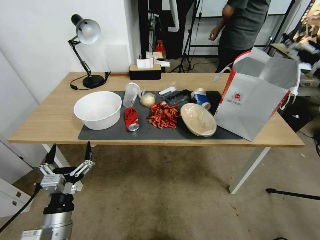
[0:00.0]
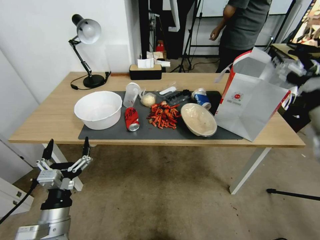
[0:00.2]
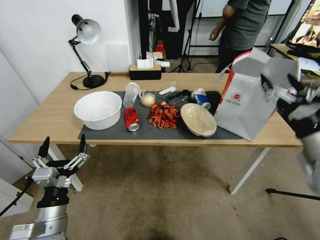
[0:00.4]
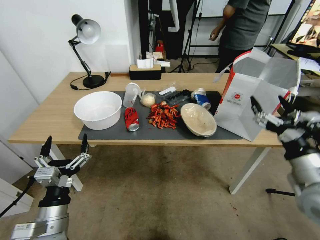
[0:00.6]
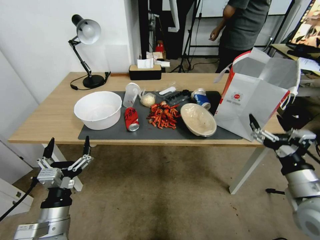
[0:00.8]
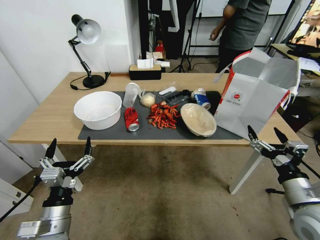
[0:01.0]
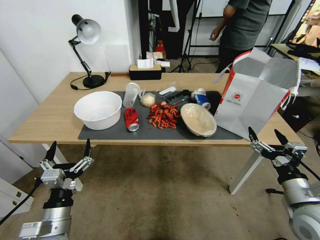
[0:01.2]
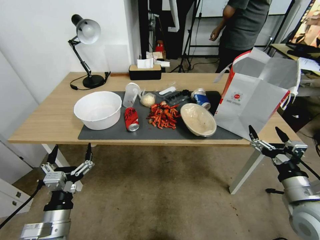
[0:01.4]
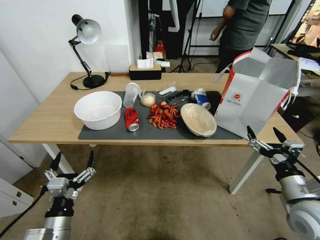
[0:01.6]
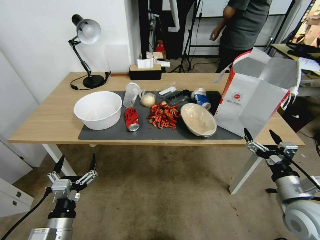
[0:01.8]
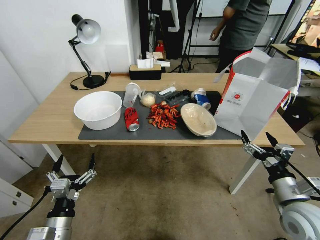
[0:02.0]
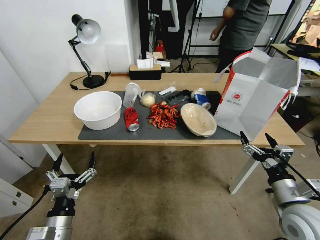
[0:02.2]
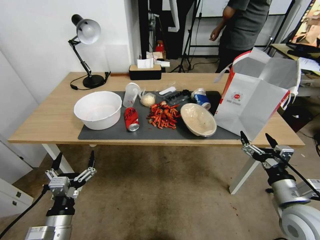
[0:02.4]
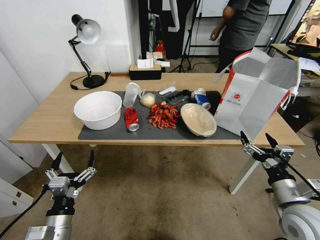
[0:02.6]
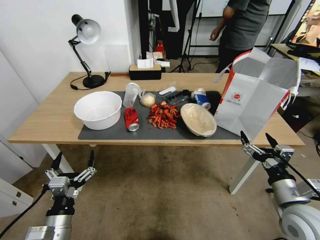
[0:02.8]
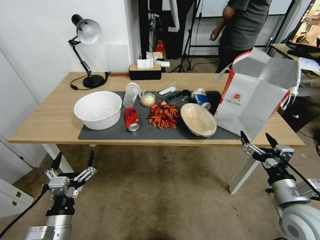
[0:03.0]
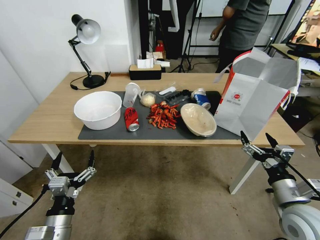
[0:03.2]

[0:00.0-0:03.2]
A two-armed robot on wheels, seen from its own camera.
Task of the whole recording: Pick up the food delivery bag from the floor and place it on the table.
0:00.0 to 0:01.6: The right gripper heads downward and backward, covering some 25 cm.
0:01.6 to 0:03.2: The grippers move only a little.

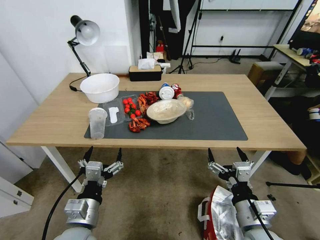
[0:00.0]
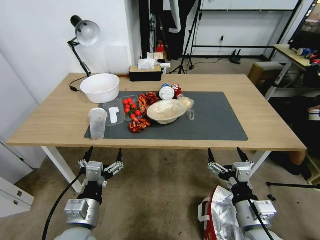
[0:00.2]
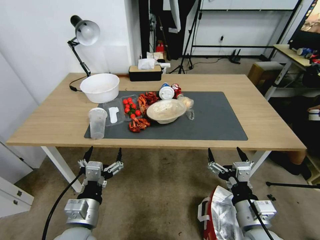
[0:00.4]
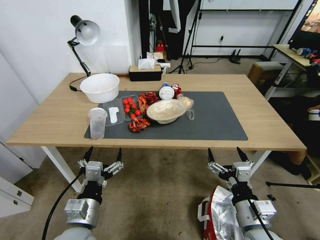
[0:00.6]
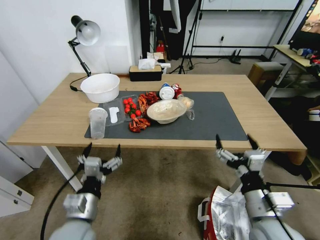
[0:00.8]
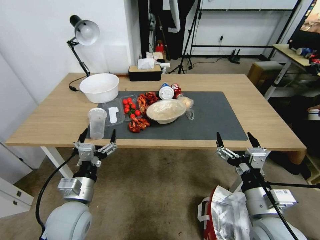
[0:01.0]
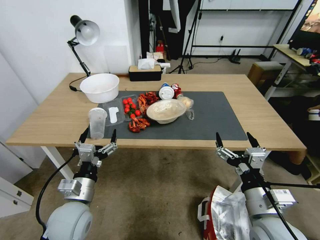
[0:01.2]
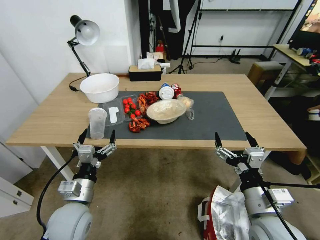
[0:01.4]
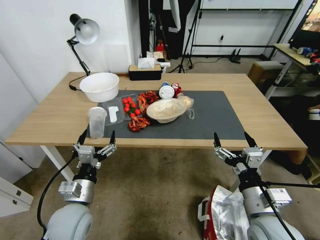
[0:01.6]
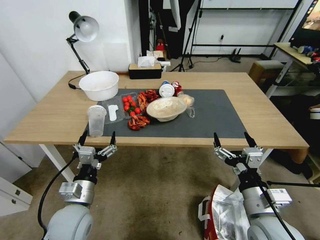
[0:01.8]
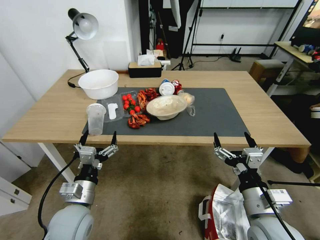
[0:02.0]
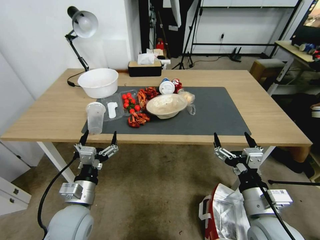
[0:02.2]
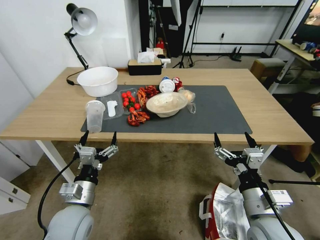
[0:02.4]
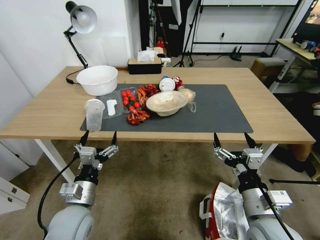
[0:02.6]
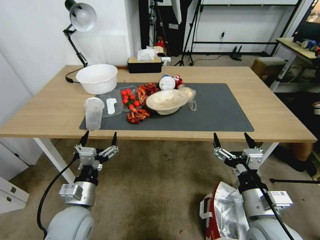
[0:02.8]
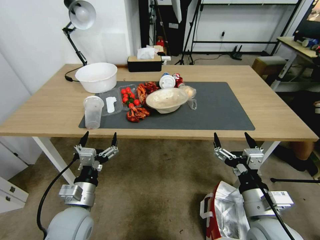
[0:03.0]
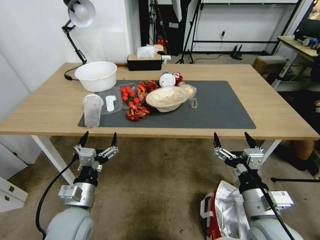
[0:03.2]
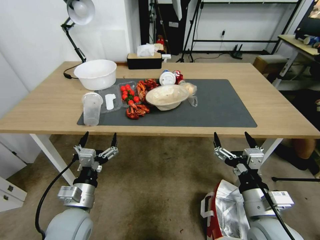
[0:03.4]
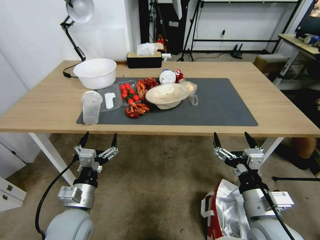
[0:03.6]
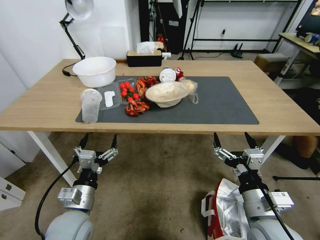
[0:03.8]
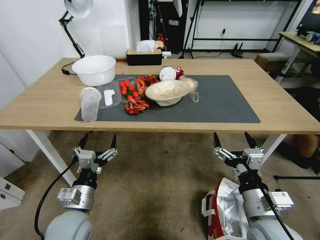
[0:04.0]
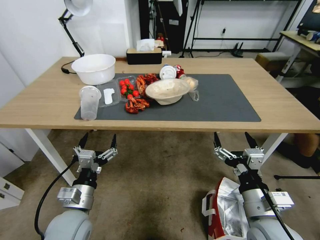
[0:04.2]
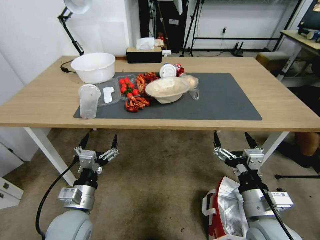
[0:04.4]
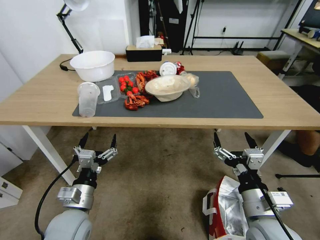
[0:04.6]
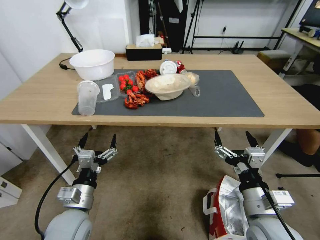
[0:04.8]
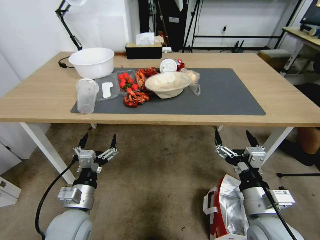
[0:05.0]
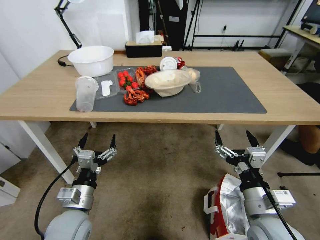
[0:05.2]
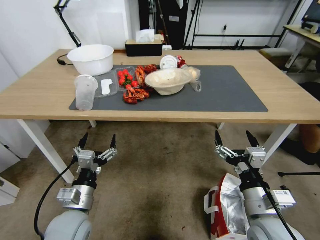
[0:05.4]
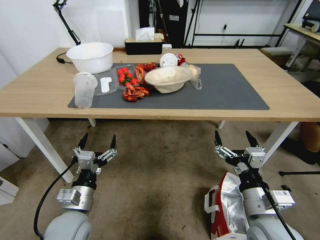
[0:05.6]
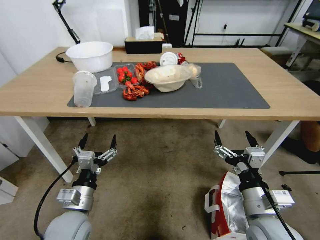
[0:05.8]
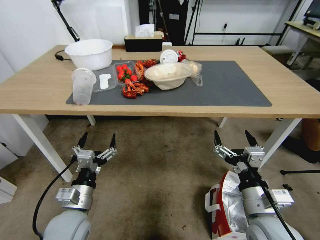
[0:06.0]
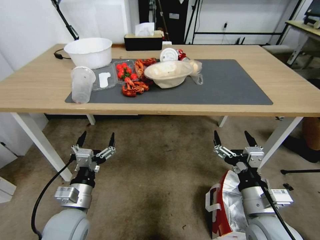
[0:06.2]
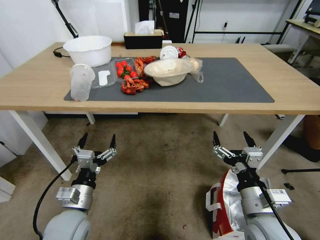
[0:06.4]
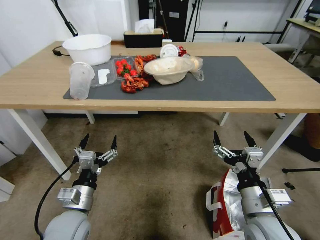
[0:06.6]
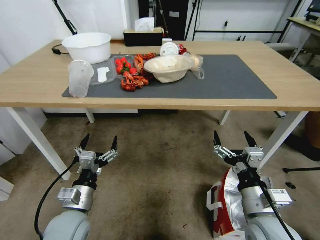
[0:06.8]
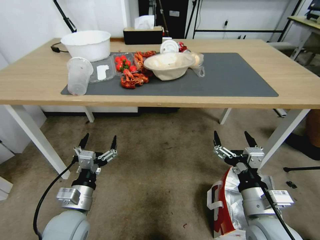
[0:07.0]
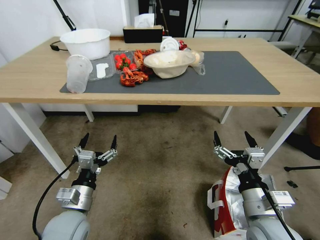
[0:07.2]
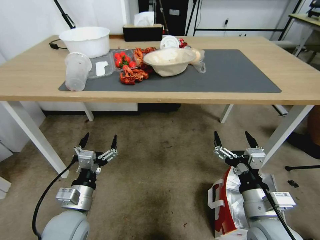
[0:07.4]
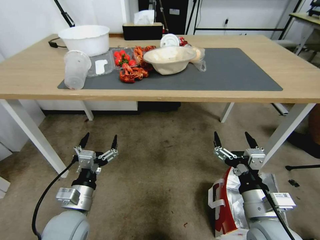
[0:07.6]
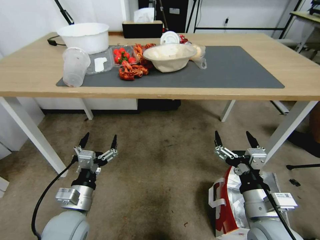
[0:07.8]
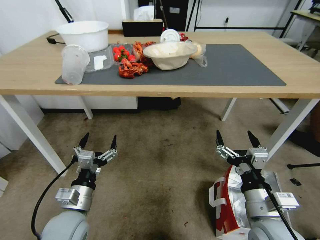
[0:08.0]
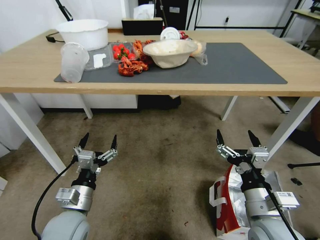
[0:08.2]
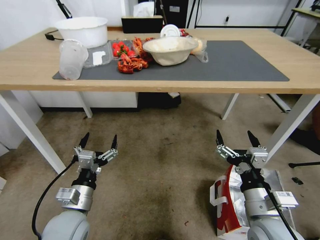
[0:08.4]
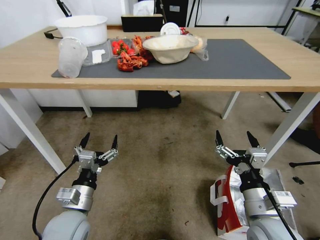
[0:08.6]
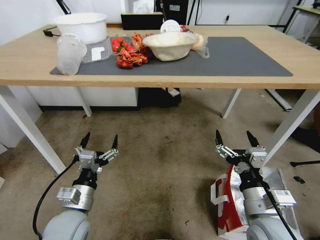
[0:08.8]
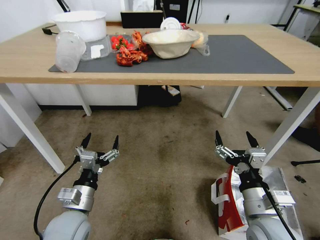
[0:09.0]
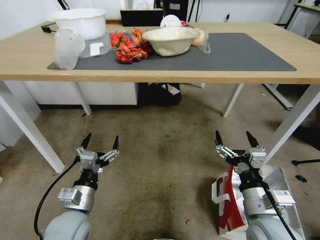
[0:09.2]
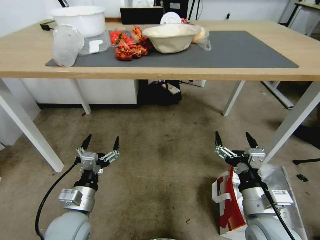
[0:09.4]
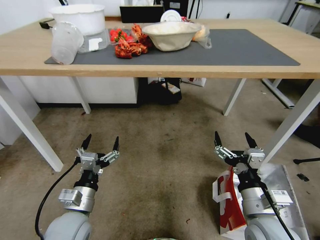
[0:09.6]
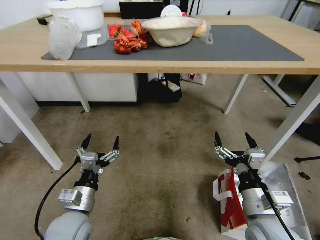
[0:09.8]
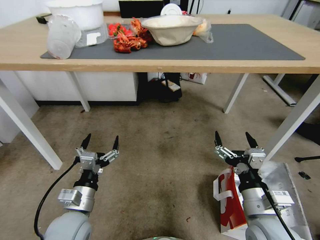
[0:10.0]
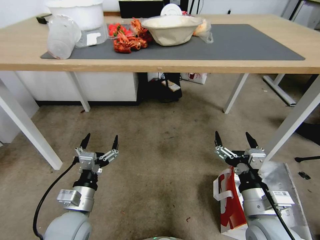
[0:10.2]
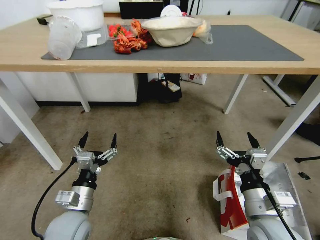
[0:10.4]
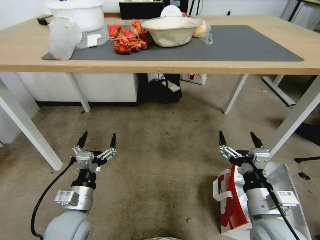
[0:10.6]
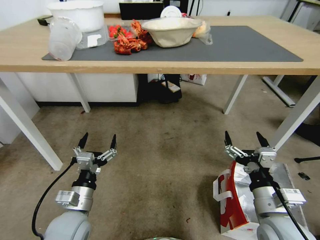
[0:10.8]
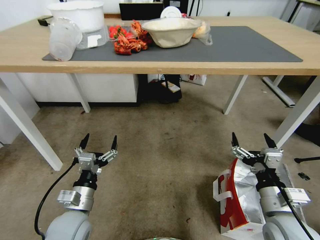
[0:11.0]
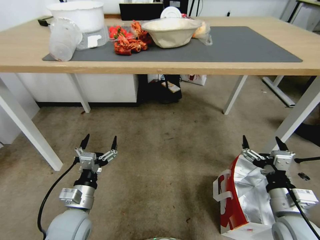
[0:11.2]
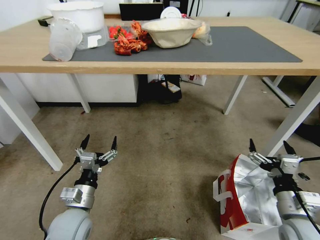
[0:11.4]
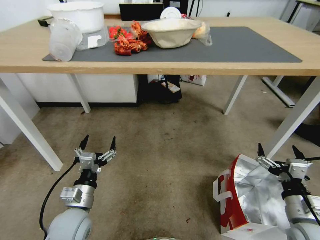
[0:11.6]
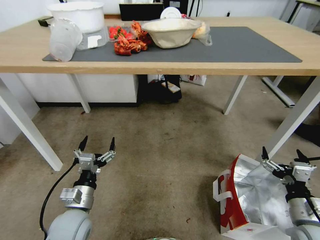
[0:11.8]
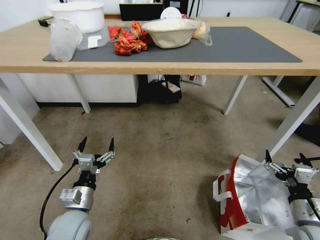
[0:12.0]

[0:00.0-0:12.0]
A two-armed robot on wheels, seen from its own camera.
Task of the whole recording: Pick up the food delivery bag from the floor and place it on the table.
0:10.4 to 0:12.0: The right gripper moves to the right and downward, approximately 15 cm.

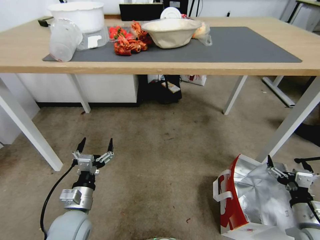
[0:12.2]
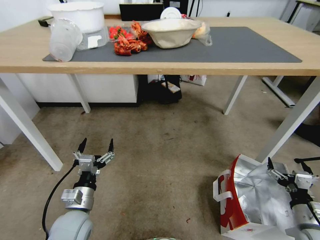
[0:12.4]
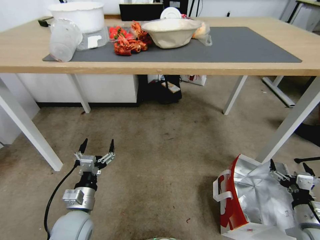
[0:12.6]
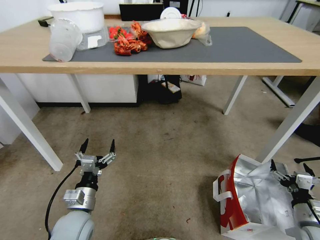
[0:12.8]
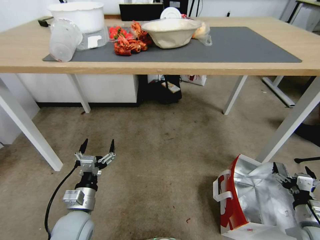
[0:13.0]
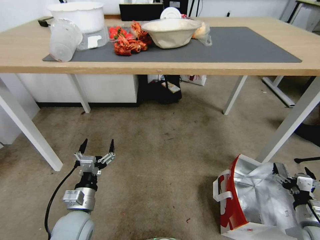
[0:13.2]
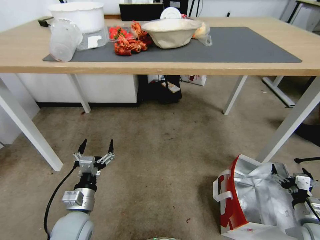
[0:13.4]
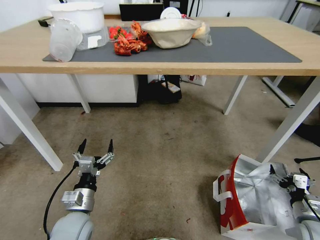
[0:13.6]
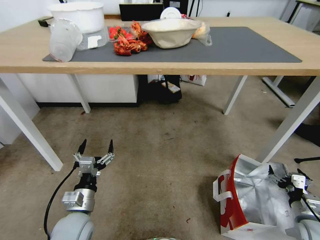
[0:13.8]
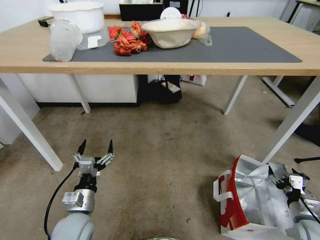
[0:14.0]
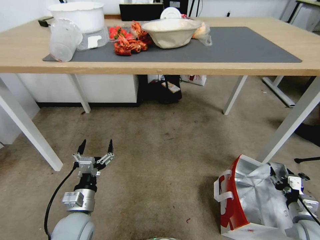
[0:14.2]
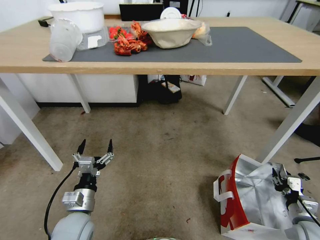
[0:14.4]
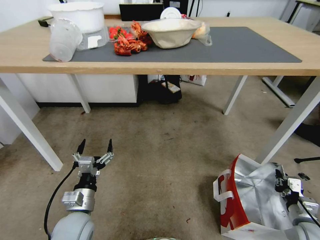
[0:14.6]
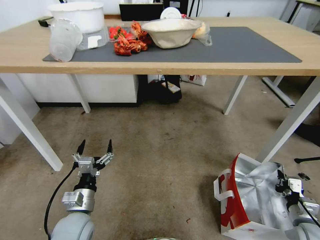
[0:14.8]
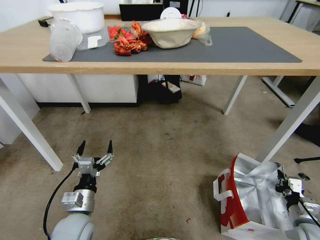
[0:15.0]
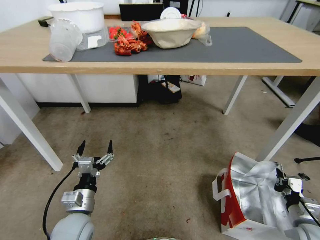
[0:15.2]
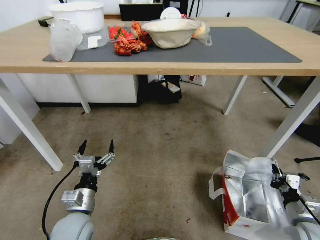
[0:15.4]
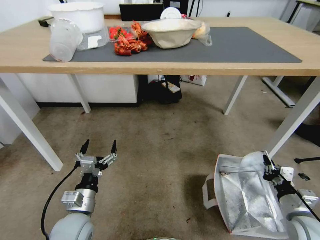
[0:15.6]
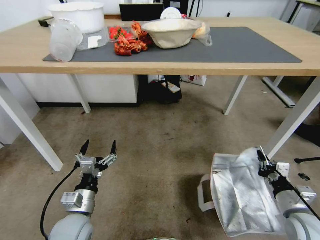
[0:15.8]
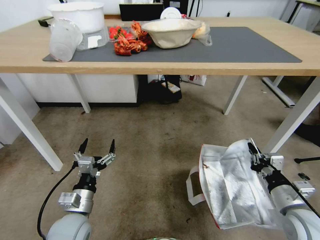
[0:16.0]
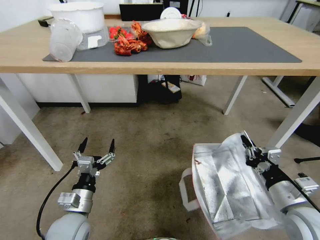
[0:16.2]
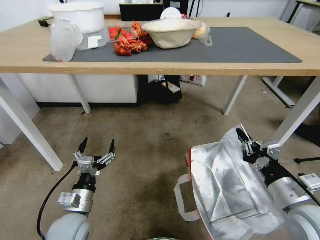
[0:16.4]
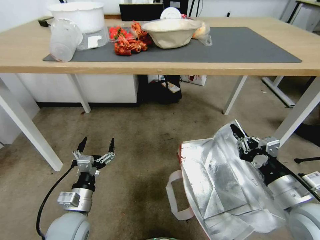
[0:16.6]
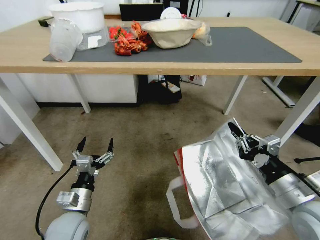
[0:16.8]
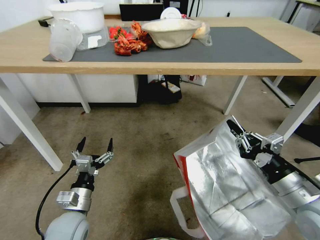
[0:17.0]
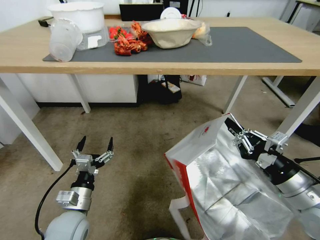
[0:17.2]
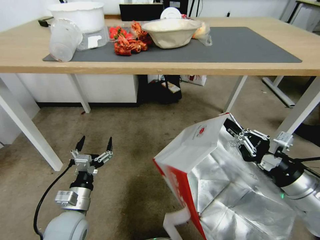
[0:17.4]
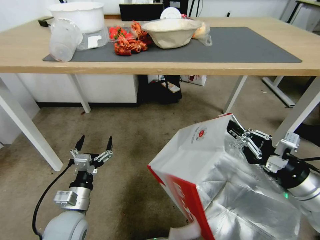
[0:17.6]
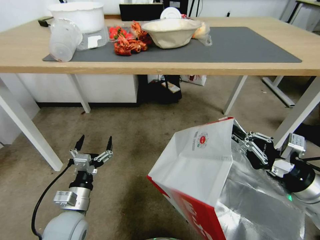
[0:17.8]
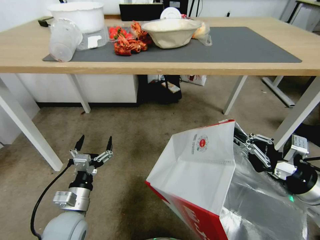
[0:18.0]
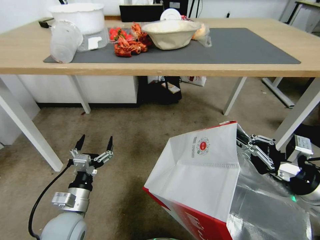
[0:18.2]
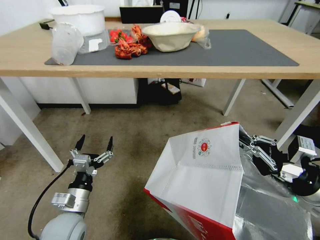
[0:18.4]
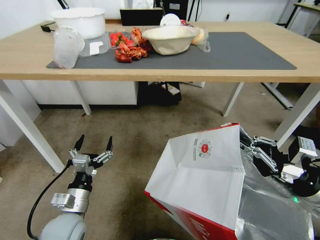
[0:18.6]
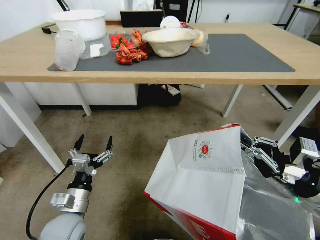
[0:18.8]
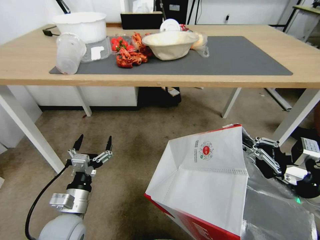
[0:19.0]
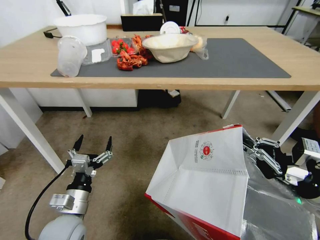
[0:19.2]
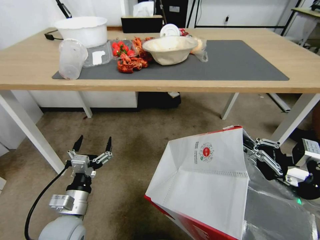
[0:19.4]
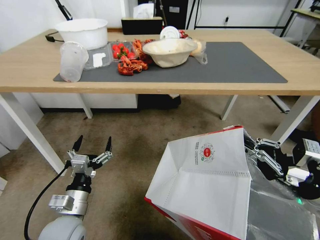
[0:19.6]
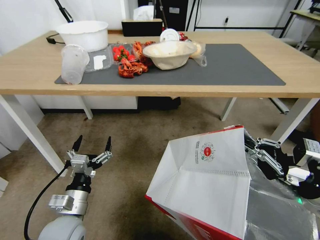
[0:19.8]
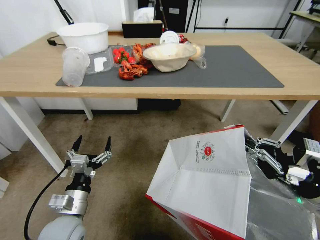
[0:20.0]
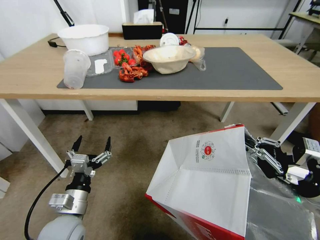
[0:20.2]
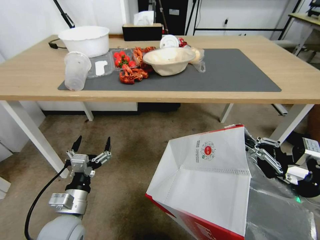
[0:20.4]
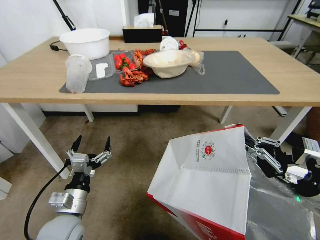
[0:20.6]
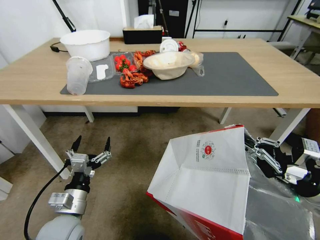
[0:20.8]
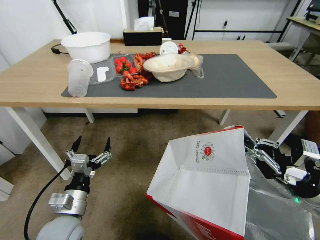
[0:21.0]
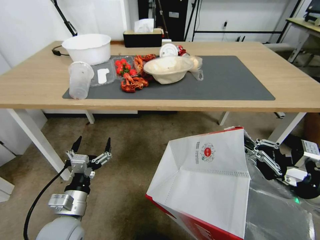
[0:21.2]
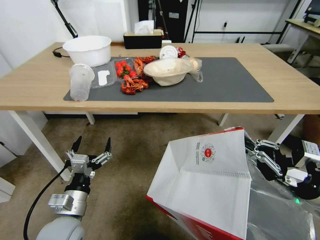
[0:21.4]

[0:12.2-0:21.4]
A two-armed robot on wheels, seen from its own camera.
Task of the whole recording: Pick up the food delivery bag from the floor and place it on the table.
0:12.2 to 0:13.8: The right gripper goes about 10 cm downward and to the right.
0:13.8 to 0:15.2: The right gripper closes.
0:15.2 to 0:16.8: The right gripper moves upward and to the left, approximately 25 cm.
0:16.8 to 0:18.4: The right gripper shifts about 5 cm to the right.
